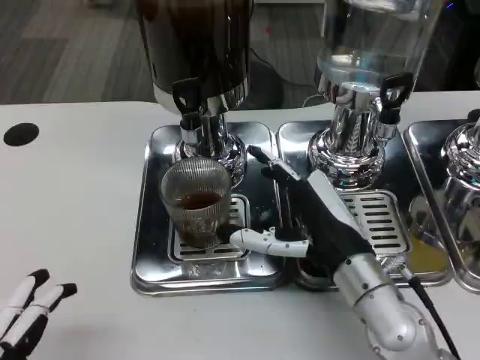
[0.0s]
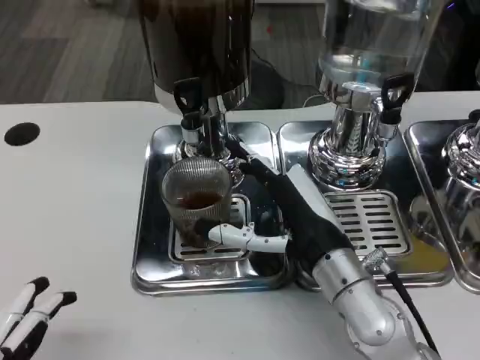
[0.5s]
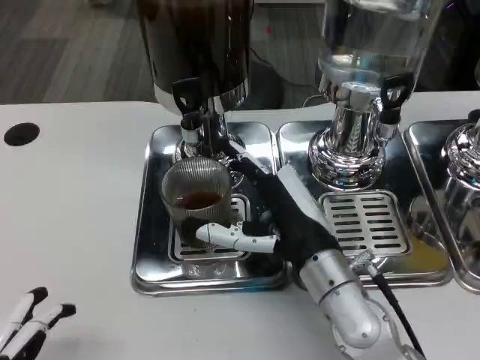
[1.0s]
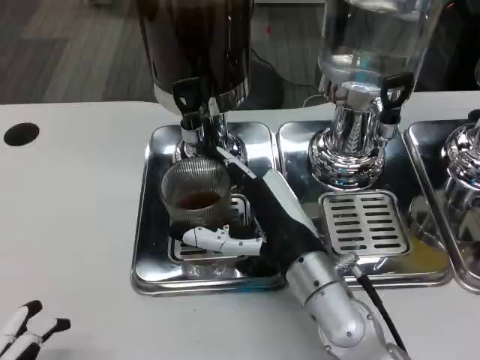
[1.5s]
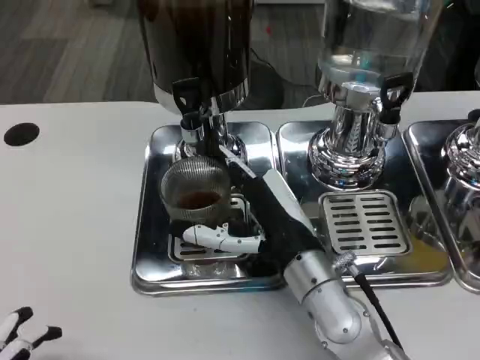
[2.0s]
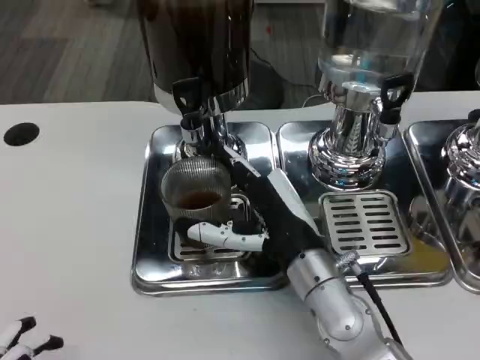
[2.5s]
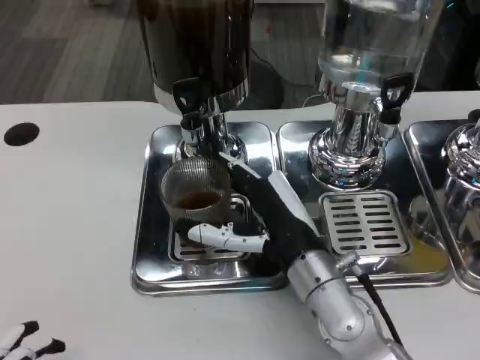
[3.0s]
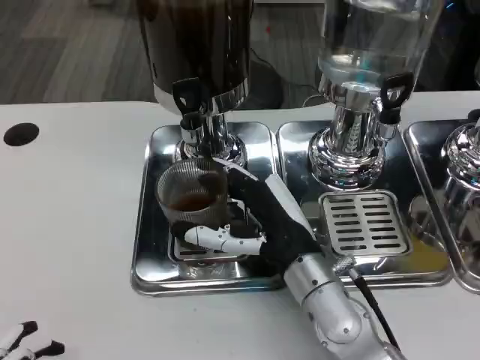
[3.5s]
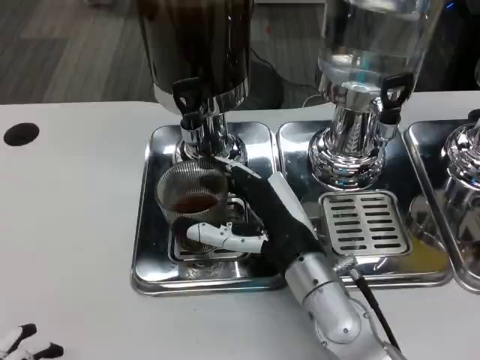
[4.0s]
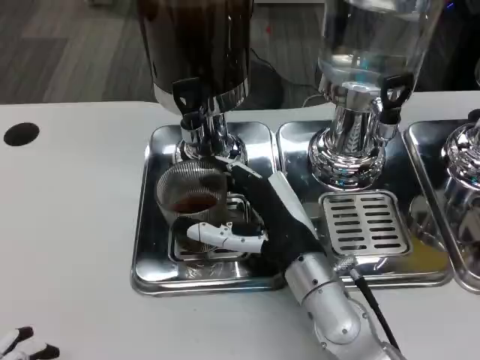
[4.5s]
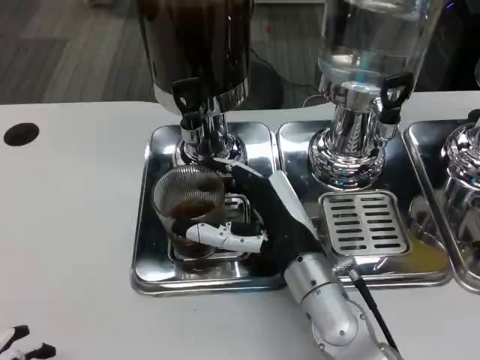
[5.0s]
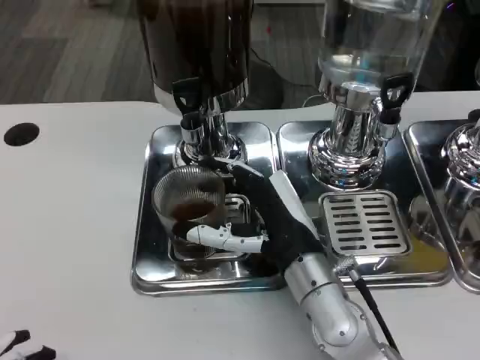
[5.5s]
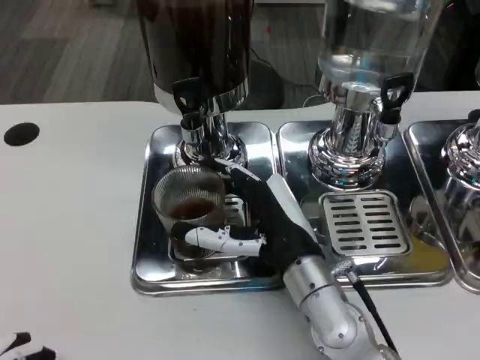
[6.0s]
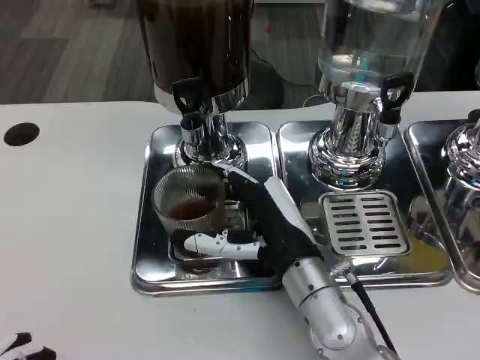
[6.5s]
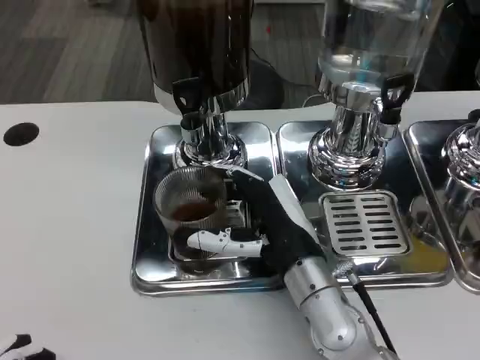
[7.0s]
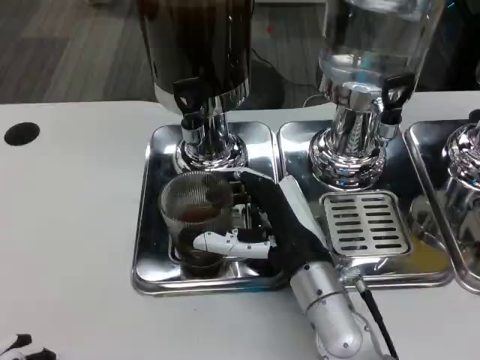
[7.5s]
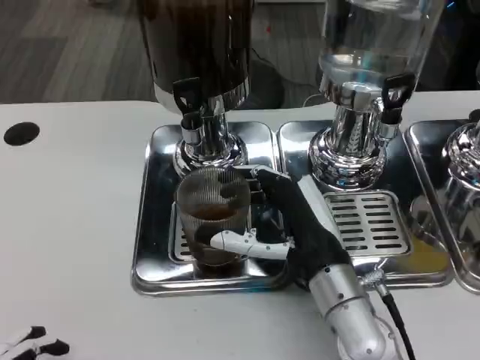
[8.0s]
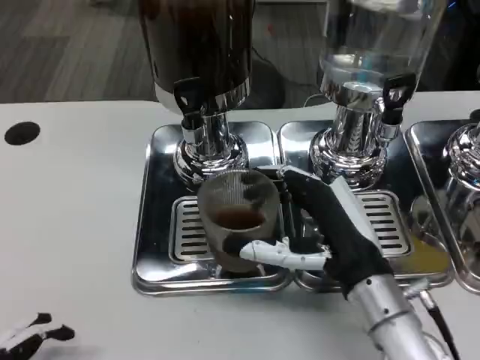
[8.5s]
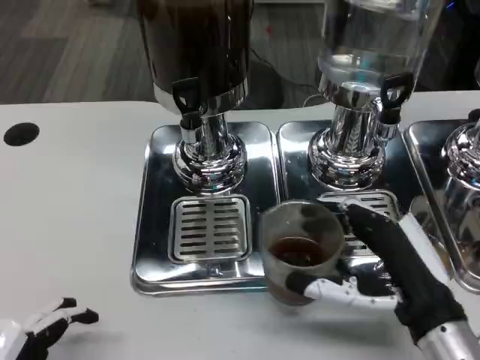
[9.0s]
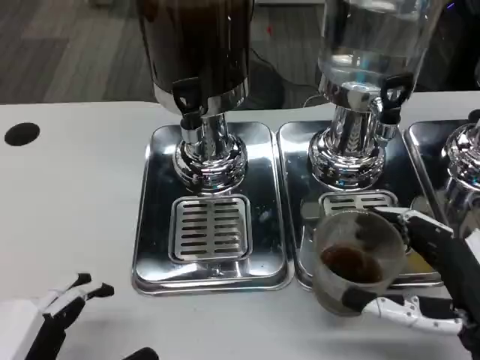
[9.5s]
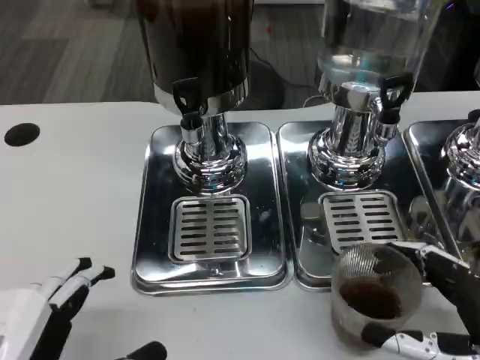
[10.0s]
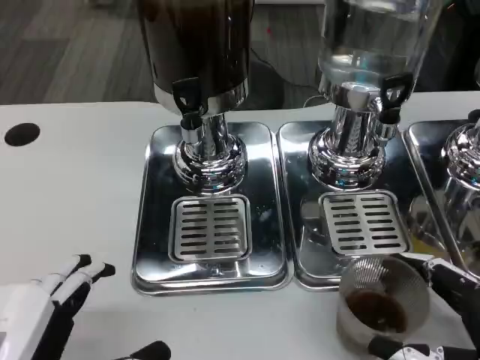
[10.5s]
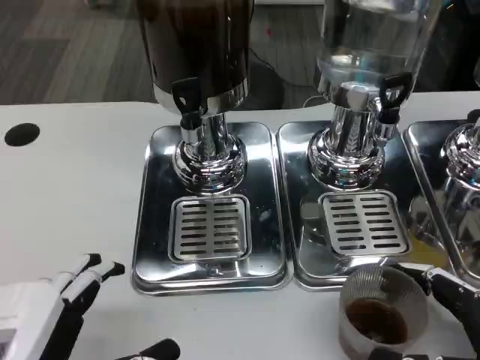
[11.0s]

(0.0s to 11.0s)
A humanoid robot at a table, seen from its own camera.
Task of the whole recording: Grasp the cup under the faucet to collect the drink, then remove the cup.
0.0s - 2.0s: There are only small adjustments of the hands.
2.0s - 5.5s: Both hands stay about where they are.
5.5s - 7.5s: Both hands stay put.
7.5s - 9.0s: The right hand is displaced to the right and backward by approximately 15 cm.
9.0s - 11.0s: The right hand heads to the right, backward and downward, covering some 10 cm.

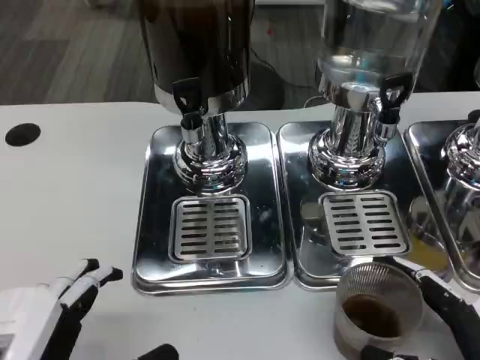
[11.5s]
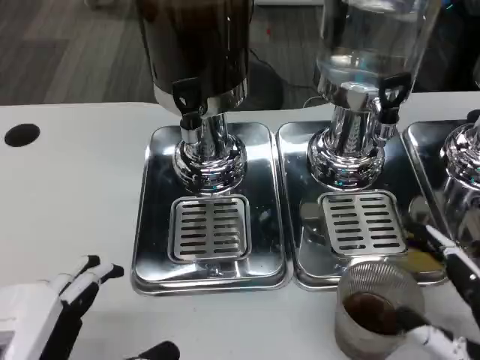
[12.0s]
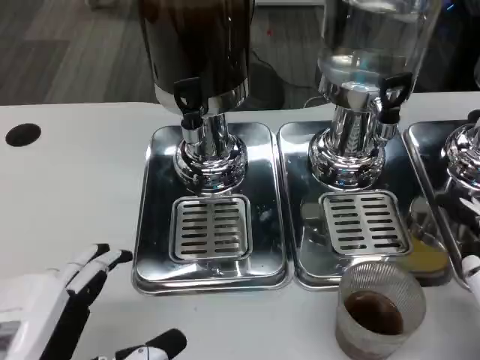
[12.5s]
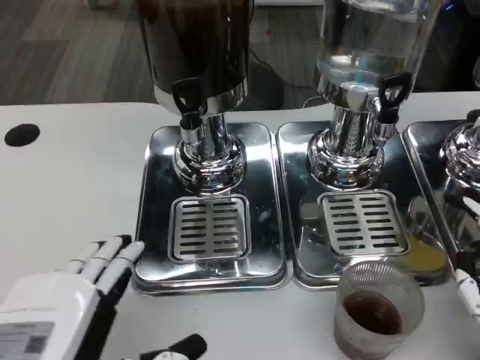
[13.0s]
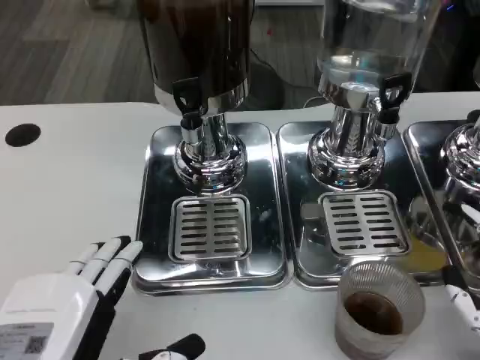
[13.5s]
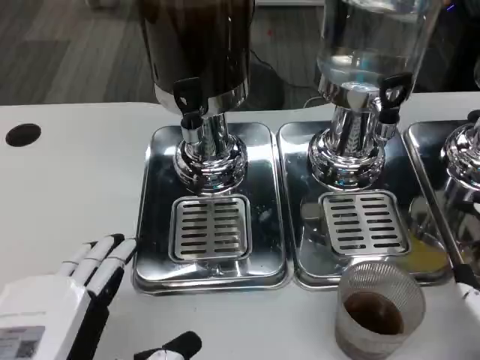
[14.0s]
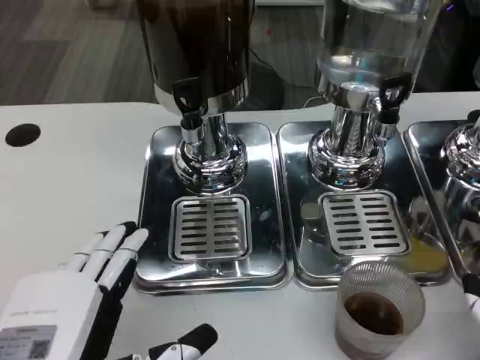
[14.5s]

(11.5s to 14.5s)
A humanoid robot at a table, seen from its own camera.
Task of the whole recording: Grasp the cup under the faucet to collect the drink, then remove the cup.
11.5s - 13.0s: The right hand moves upward, approximately 5 cm.
13.0s - 14.5s: The hands make only small movements.

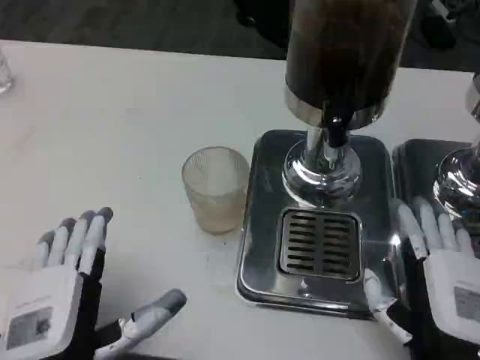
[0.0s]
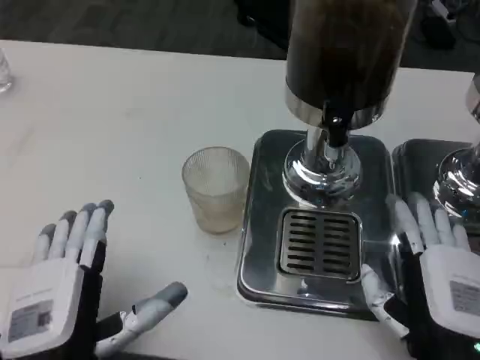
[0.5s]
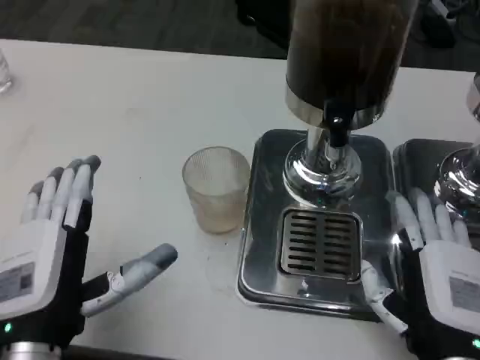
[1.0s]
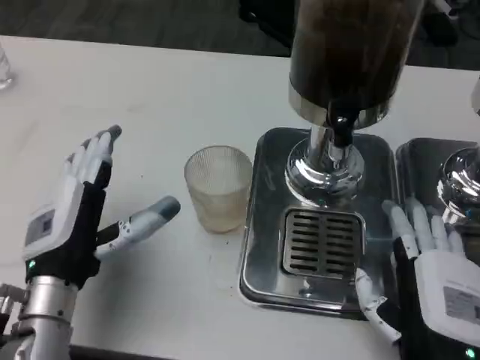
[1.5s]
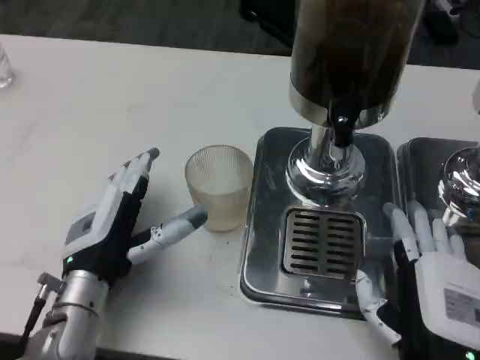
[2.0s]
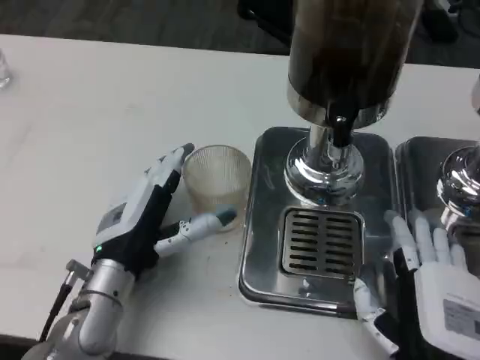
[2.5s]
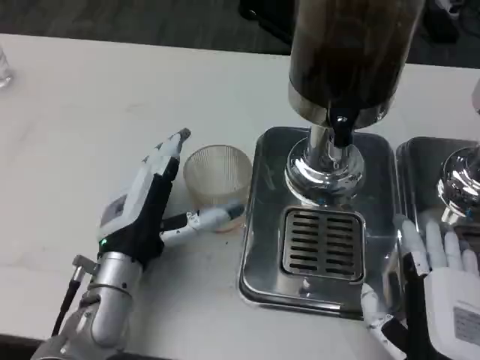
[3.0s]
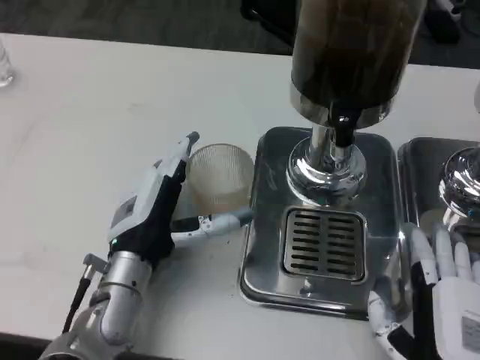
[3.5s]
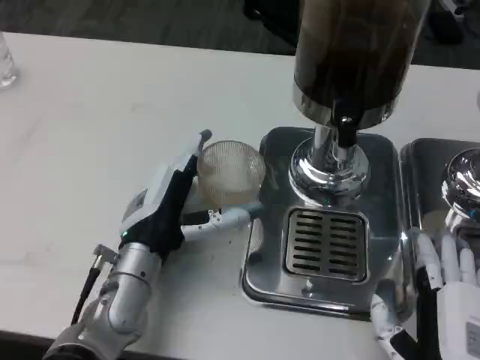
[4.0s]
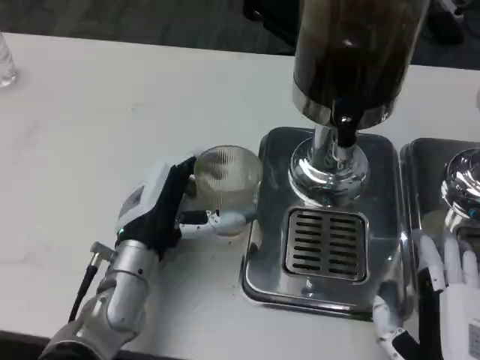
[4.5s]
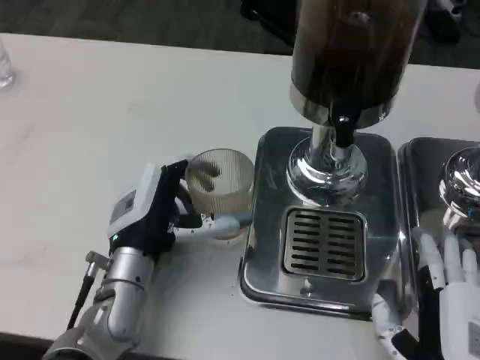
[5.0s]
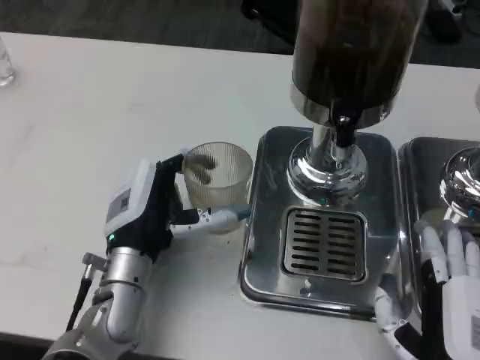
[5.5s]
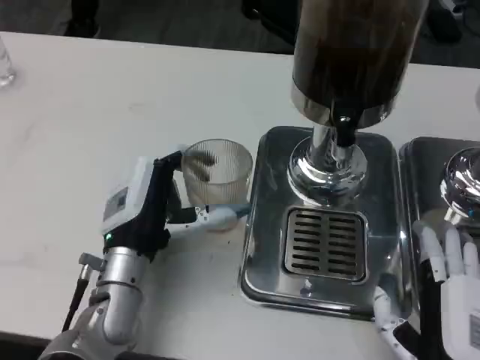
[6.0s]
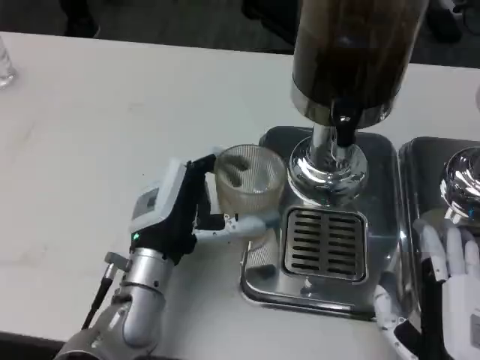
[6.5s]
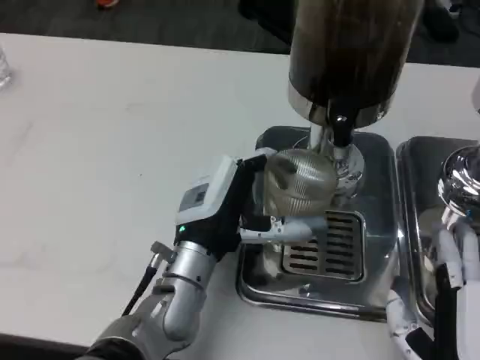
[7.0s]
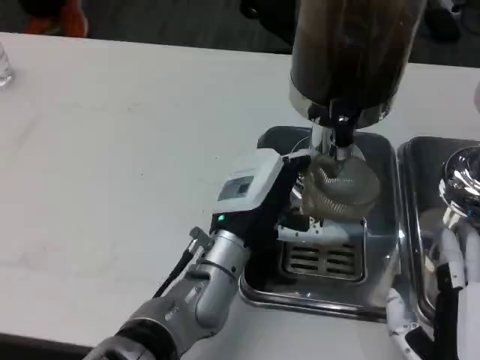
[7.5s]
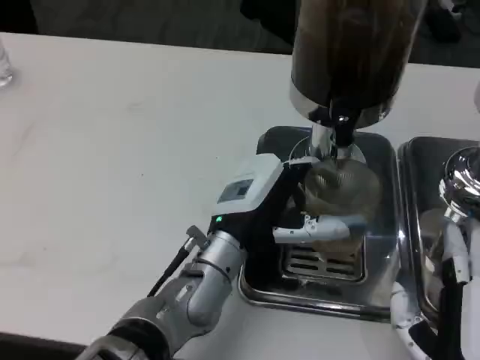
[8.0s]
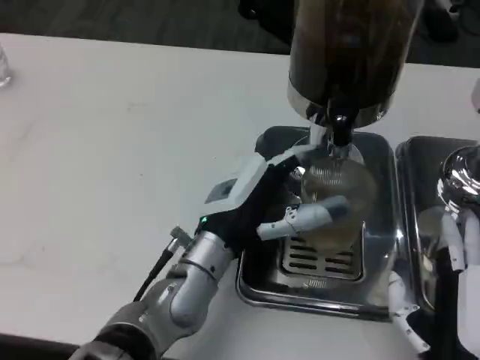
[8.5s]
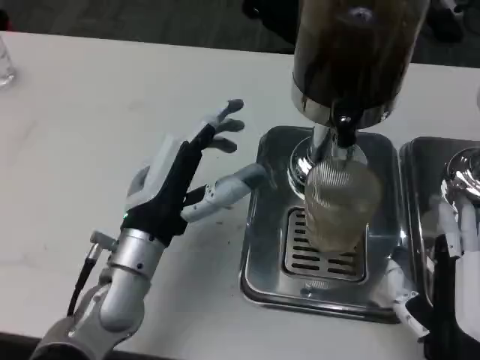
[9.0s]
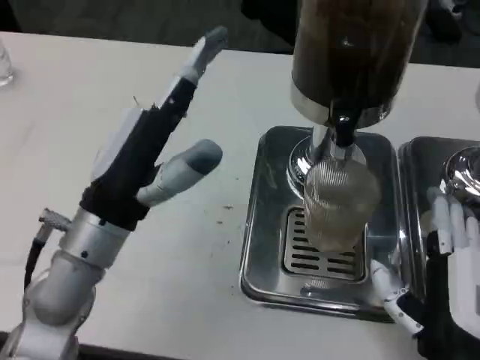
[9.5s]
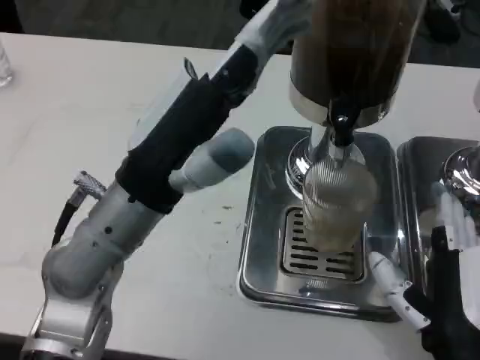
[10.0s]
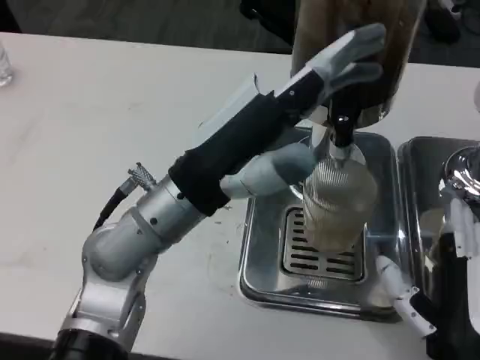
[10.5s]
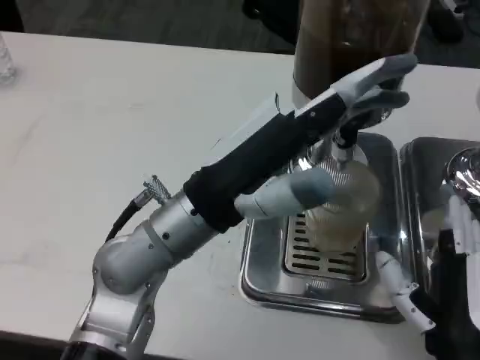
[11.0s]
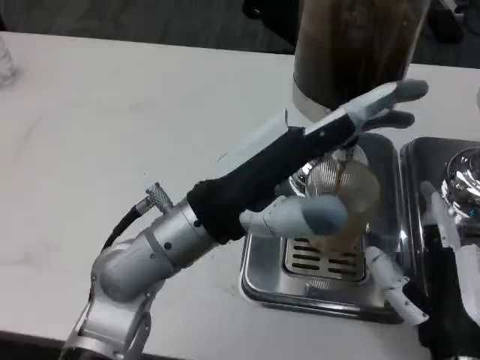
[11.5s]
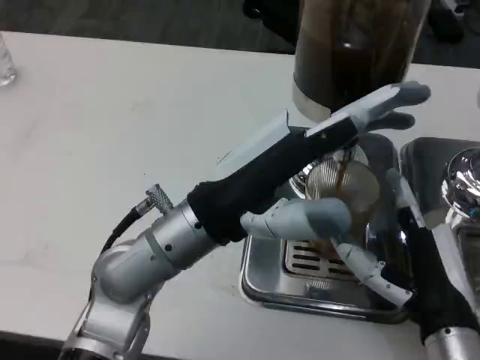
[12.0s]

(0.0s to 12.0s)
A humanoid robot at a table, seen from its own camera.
Task of the whole recording: Grasp the cup under the faucet to collect the drink, then remove the cup.
0.0s - 2.0s: The left hand moves forward, about 15 cm.
2.0s - 4.0s: The left hand shifts by roughly 5 cm.
4.0s - 6.0s: The hands make only small movements.
6.0s - 8.0s: The left hand moves to the right, some 10 cm.
8.0s - 10.0s: The left hand goes approximately 15 cm upward and to the left.
